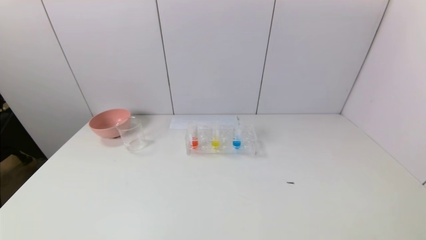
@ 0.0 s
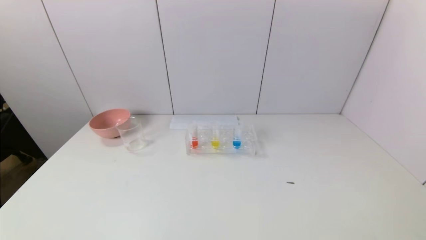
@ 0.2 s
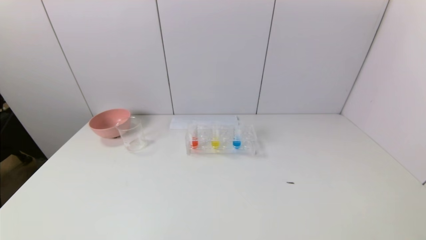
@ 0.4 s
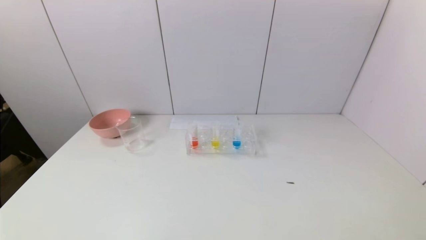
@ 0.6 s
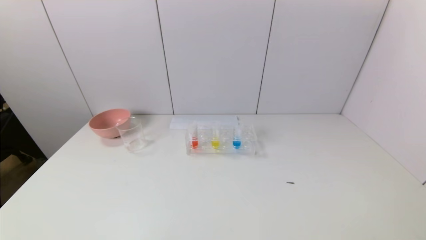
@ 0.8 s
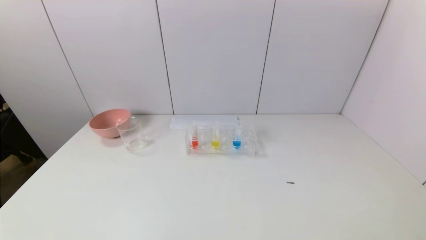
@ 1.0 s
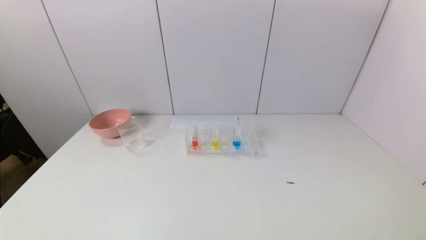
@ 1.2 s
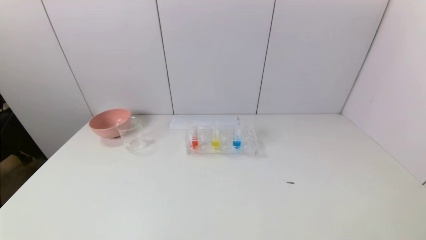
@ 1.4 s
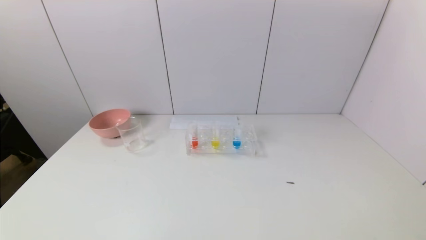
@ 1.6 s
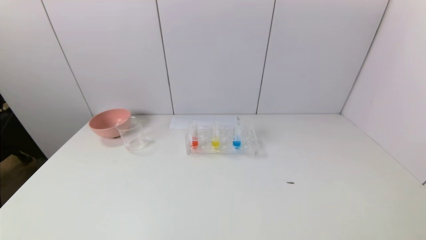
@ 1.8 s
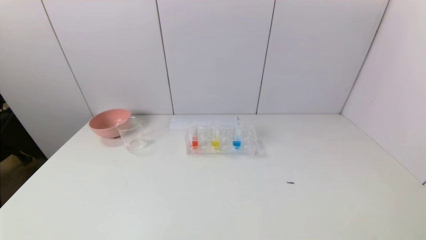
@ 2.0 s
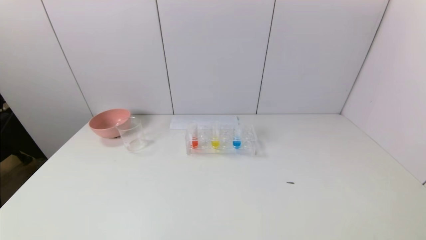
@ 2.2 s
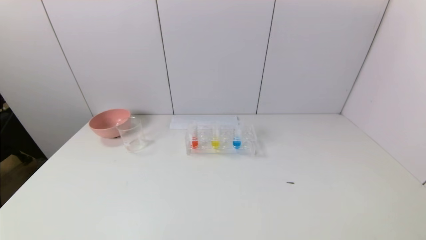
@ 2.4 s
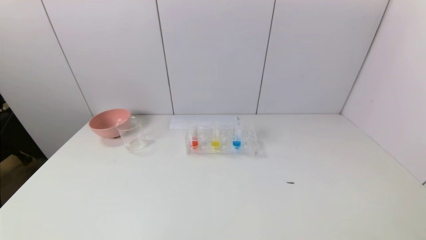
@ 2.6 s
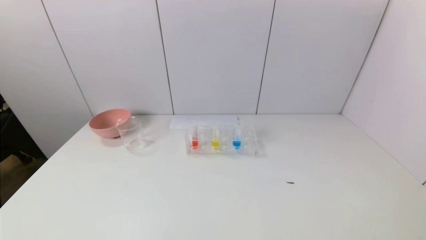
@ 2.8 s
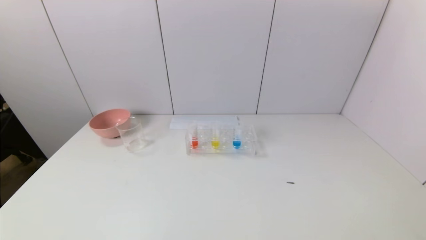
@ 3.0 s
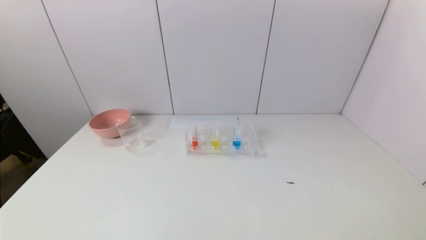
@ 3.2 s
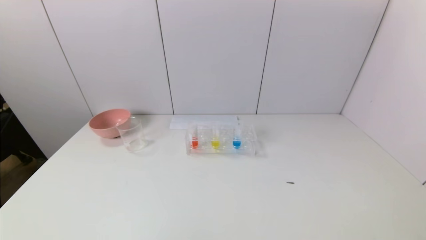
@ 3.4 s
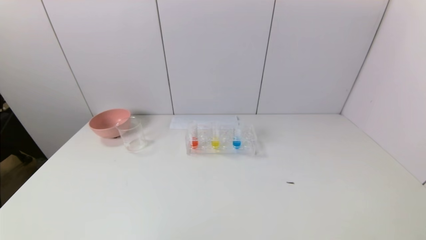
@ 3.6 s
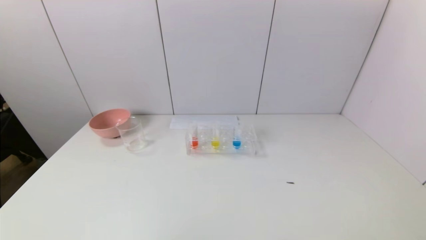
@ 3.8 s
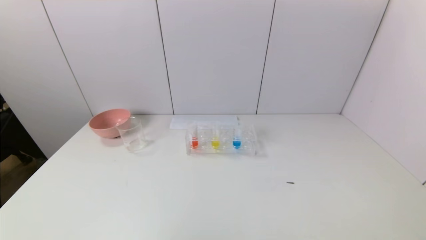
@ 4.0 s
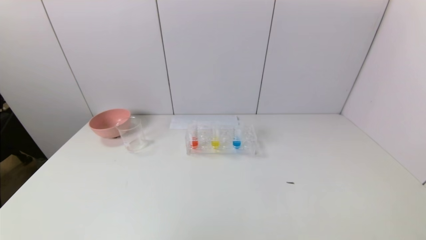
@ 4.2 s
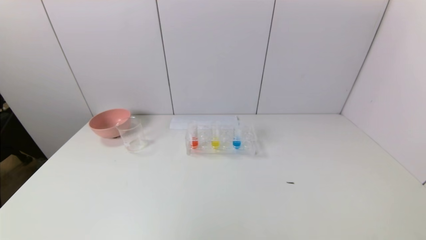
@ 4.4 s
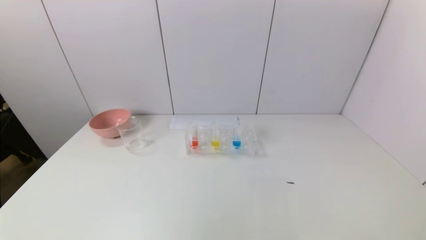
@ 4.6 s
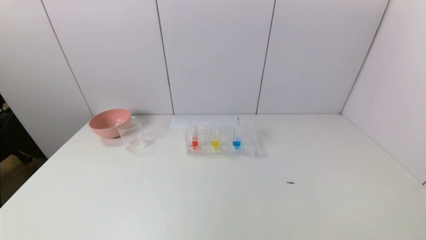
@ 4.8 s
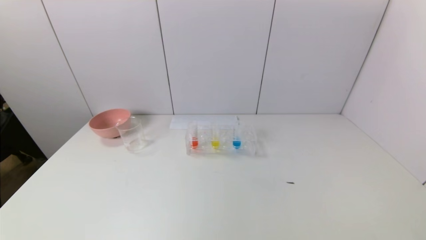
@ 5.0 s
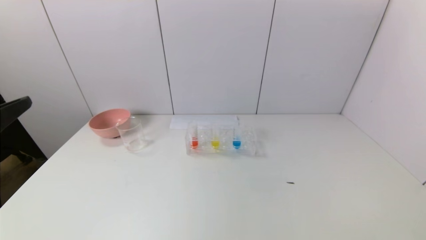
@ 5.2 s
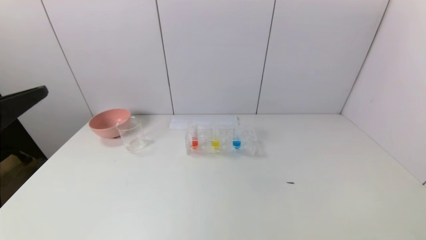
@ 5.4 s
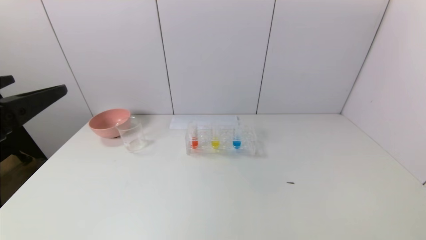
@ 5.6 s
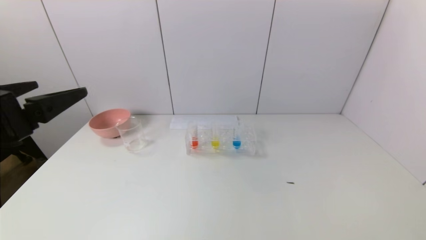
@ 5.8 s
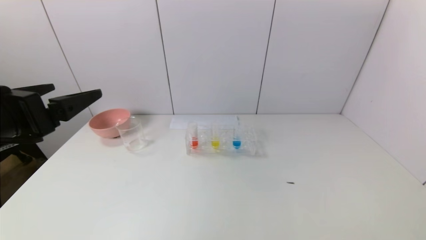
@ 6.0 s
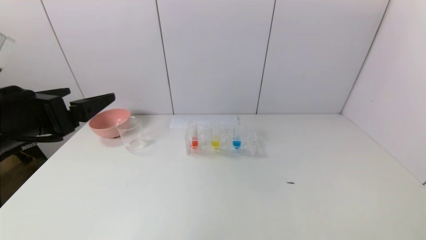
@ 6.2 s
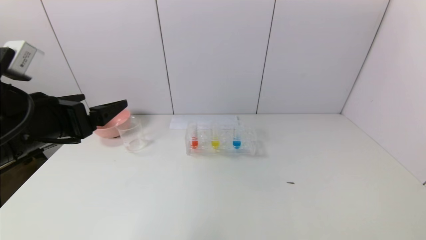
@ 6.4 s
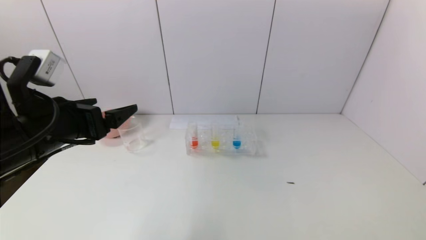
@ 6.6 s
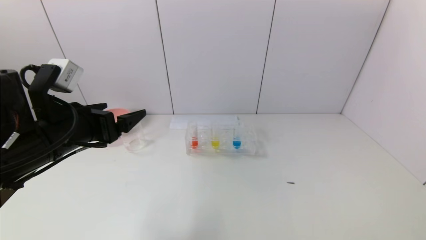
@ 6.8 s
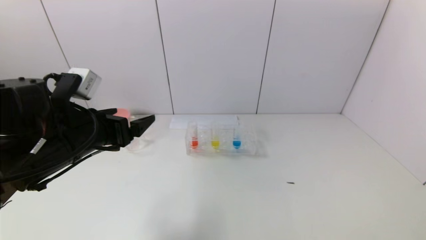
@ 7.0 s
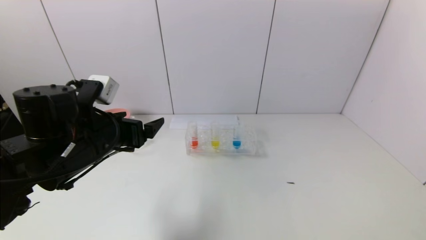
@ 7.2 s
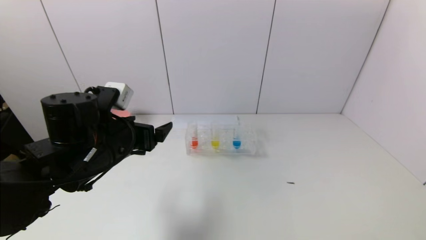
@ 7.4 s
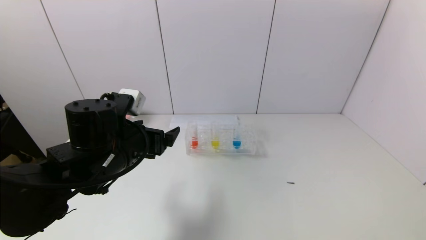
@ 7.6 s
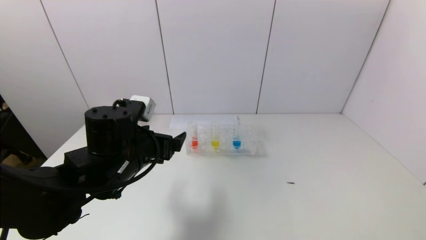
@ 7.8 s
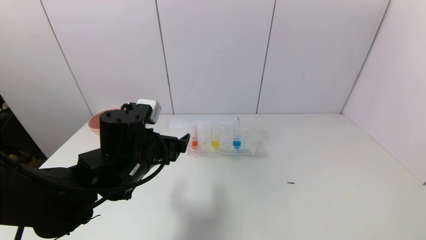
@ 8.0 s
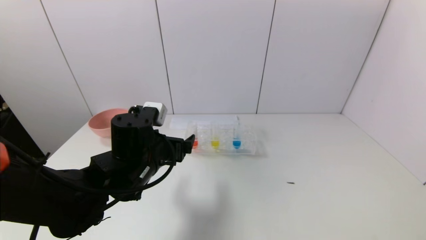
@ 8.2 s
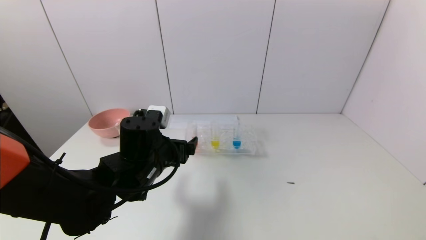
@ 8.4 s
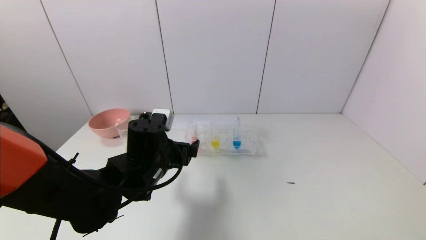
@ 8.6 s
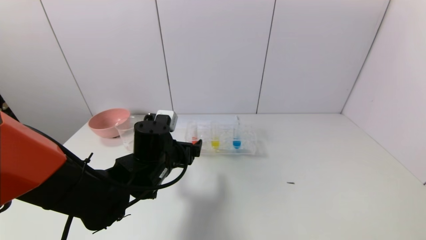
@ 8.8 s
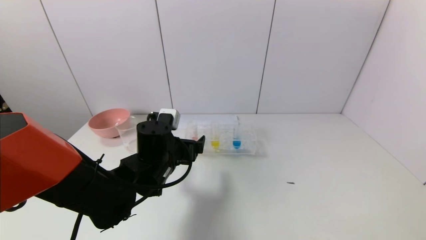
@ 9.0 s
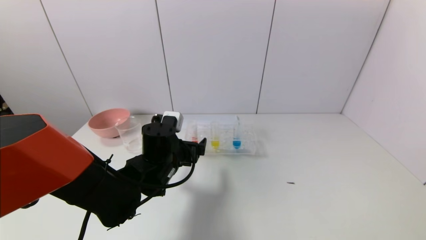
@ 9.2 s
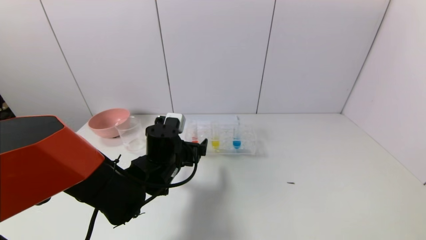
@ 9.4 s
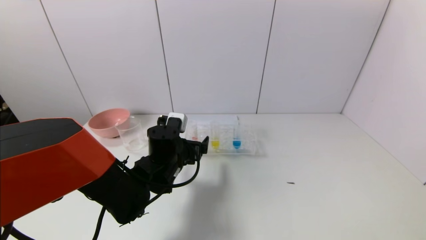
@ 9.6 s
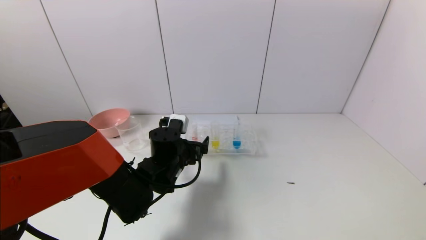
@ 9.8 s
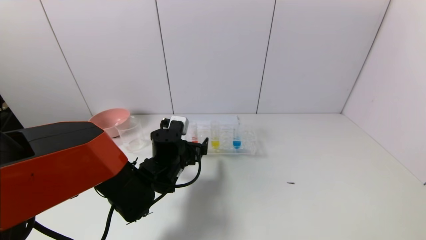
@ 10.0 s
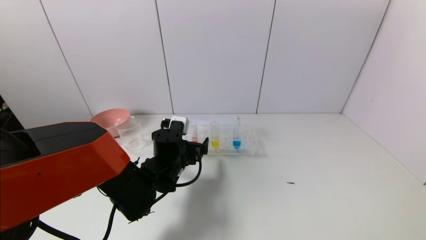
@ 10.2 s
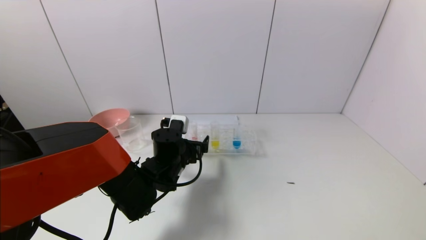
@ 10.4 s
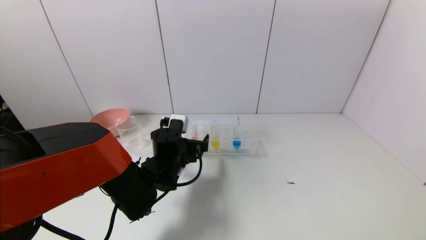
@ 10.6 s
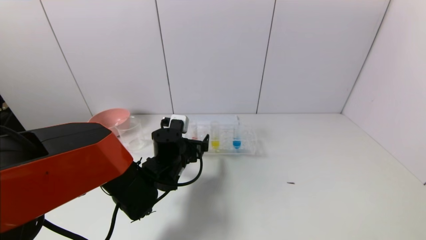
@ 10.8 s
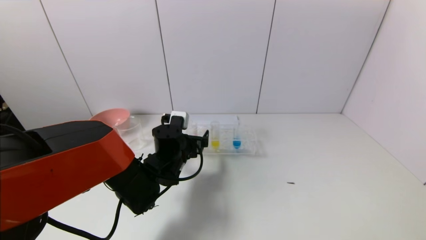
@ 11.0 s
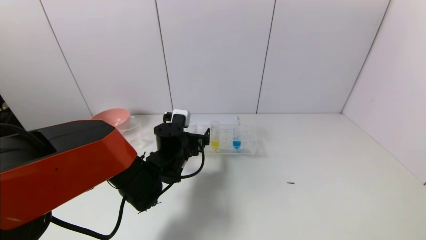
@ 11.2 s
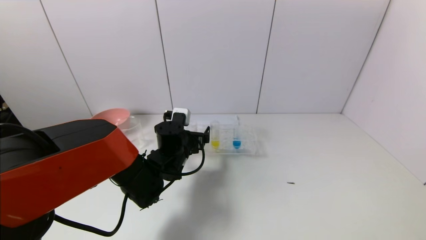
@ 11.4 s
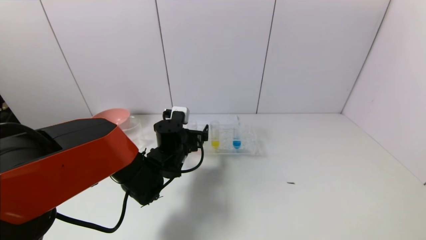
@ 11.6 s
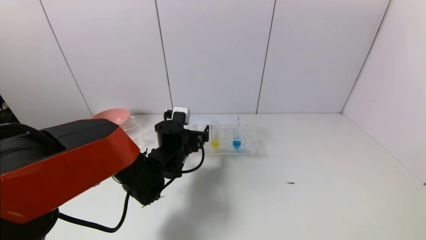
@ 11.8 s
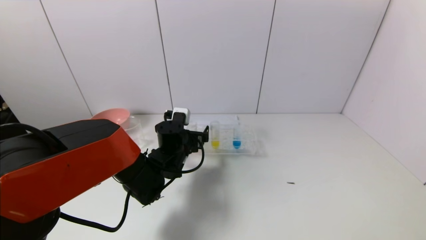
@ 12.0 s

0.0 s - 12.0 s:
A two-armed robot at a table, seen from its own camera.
Task of the whole recording: pick up the test tube with yellow pigment and the test tube with red pigment by grippers and pour them into the beaker.
0.0 s - 3.0 s: The two grippers keep their place.
4.4 s - 6.0 s: The left gripper is displaced forward by some 15 cm.
6.0 s - 7.6 s: The left gripper moves downward, to the right and forward, about 15 cm.
7.6 s - 9.0 s: The left gripper moves to the right and downward, approximately 10 cm.
9.0 s - 10.4 s: The left gripper moves approximately 5 cm.
10.4 s - 12.0 s: The grippers move only a little.

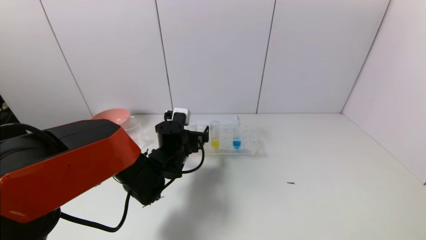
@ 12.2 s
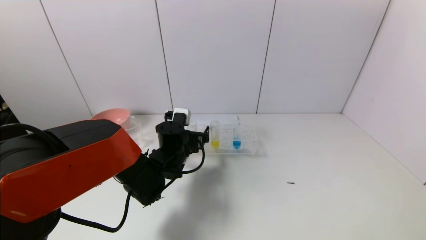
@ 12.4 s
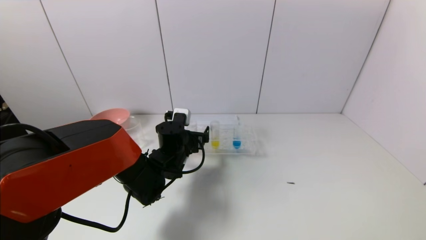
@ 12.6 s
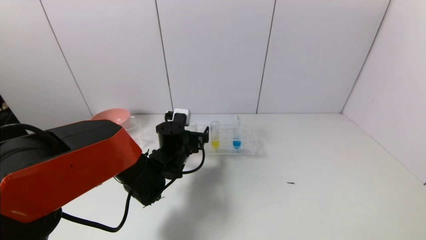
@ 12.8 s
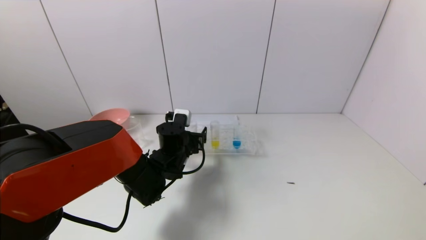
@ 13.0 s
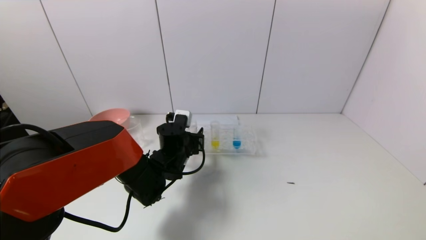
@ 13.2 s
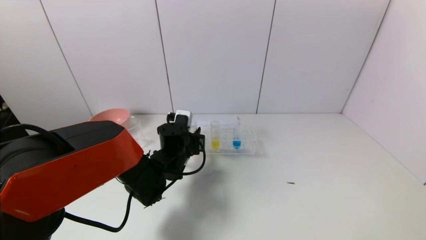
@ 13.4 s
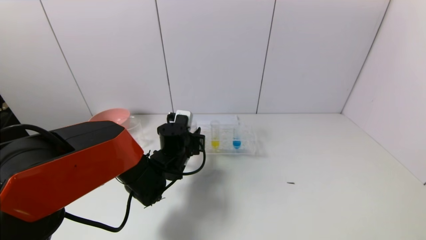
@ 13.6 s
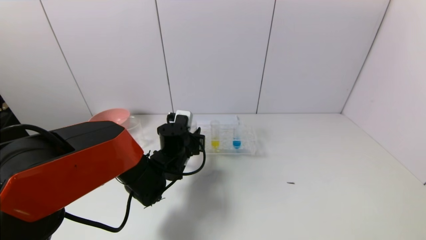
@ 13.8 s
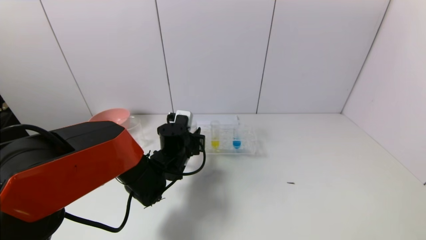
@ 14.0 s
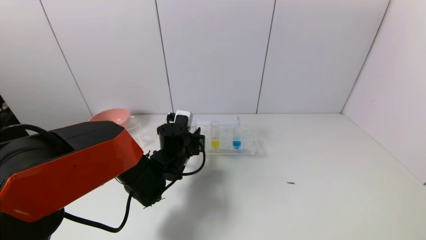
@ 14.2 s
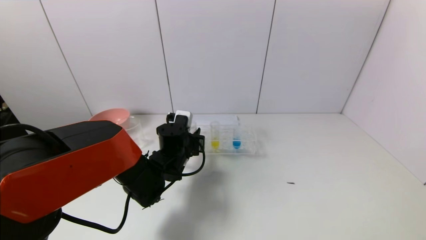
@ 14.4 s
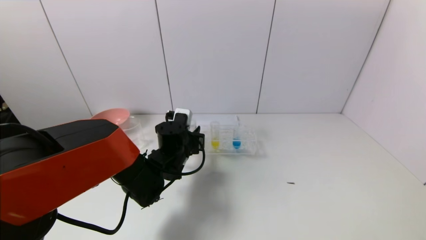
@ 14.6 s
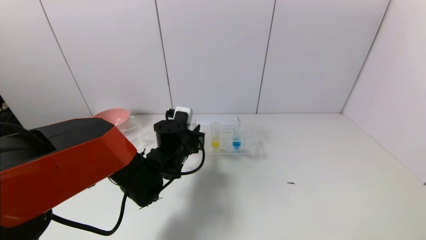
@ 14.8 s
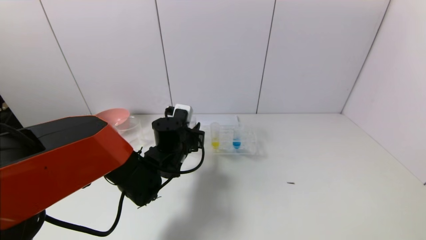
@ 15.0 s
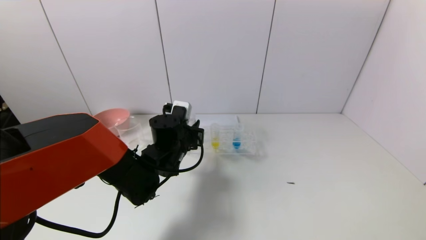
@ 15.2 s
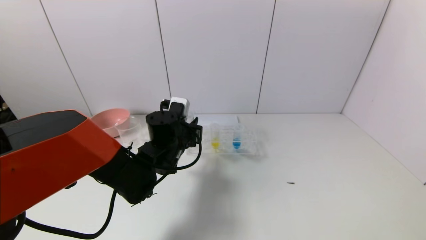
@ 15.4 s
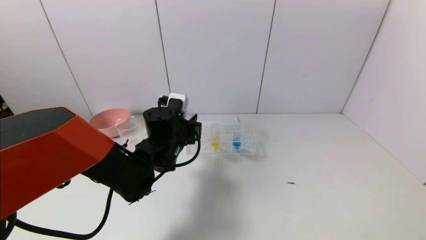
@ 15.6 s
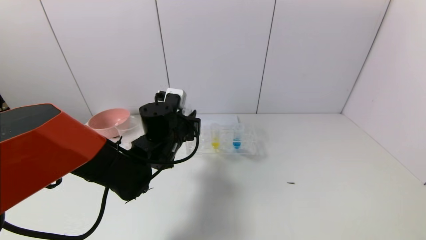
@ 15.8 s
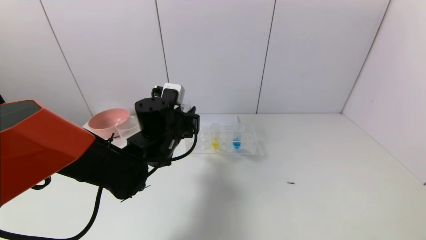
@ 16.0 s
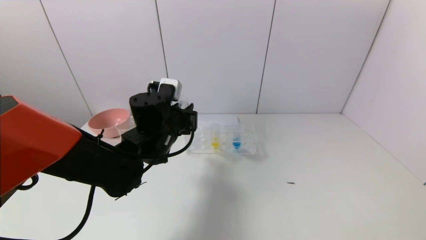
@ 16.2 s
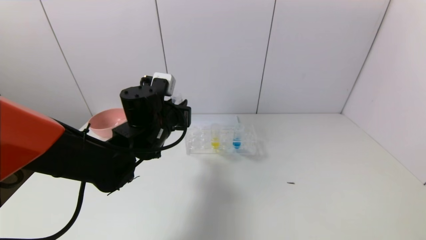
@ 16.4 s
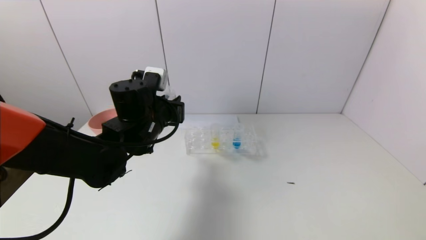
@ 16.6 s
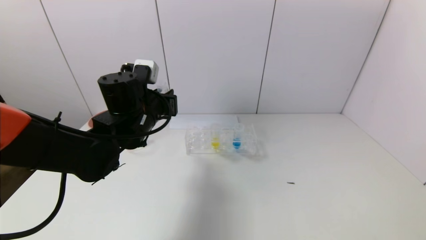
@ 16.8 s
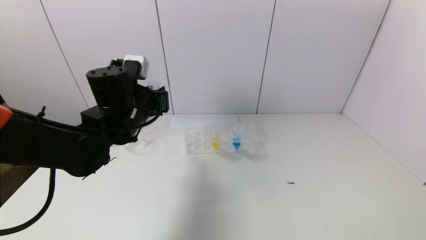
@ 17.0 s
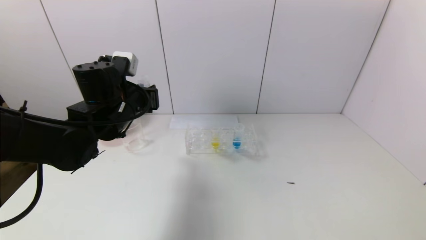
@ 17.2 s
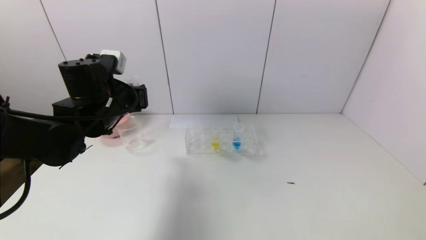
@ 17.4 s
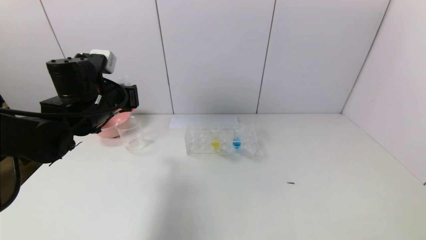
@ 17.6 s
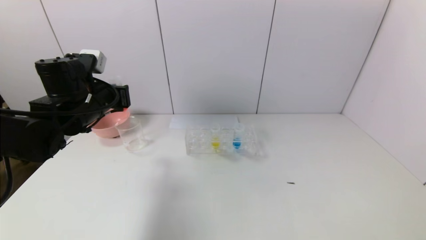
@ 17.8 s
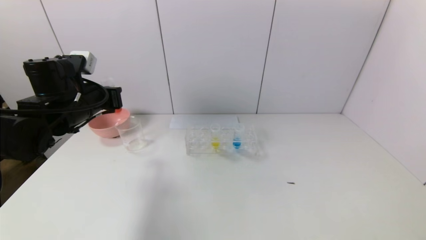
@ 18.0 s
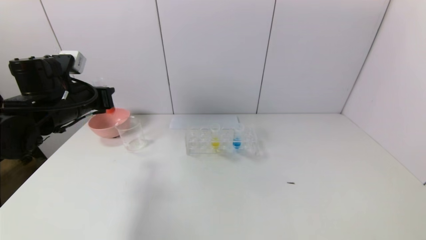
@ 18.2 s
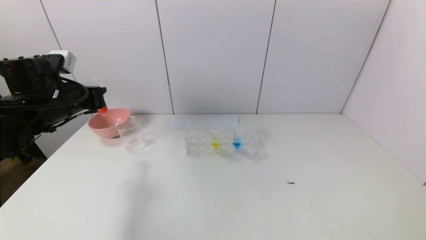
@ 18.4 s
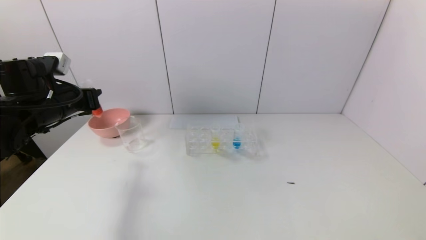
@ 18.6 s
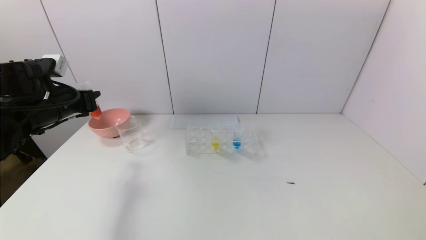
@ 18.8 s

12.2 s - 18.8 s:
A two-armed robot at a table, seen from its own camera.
Task of the whole recording: pick up the test tube with yellow pigment and the test tube with red pigment by grippers and pour them into the beaker.
12.2 s - 13.8 s: The left gripper closes its fingers.
13.8 s - 15.4 s: The left gripper ends up about 5 cm from where it was.
15.4 s - 17.2 s: The left gripper heads upward and to the left, covering roughly 15 cm.
17.2 s - 18.8 s: The left gripper shifts some 15 cm to the left.
